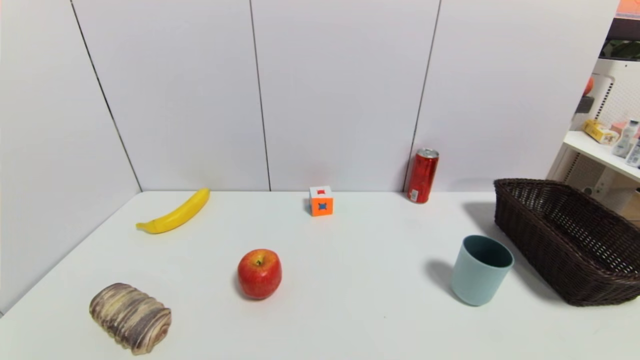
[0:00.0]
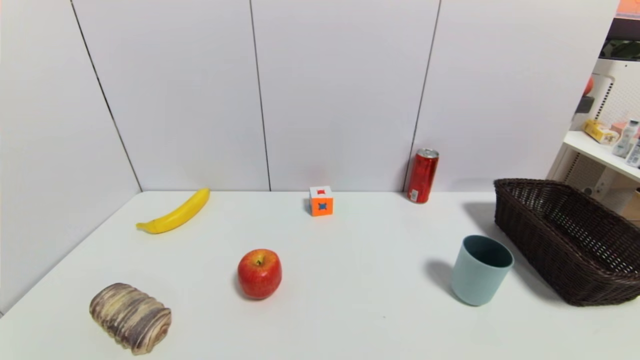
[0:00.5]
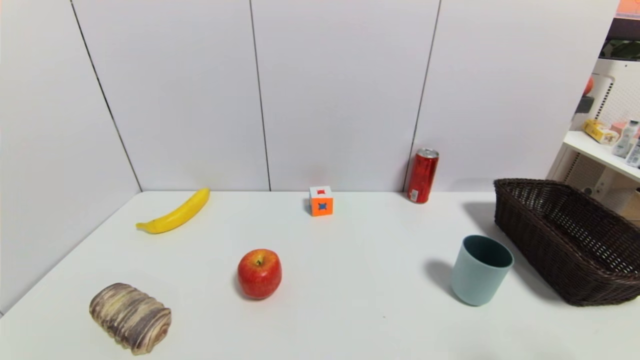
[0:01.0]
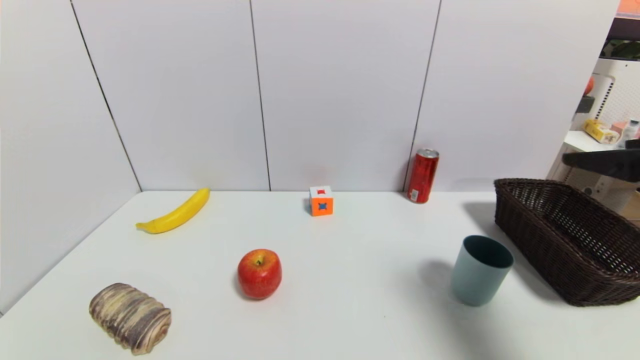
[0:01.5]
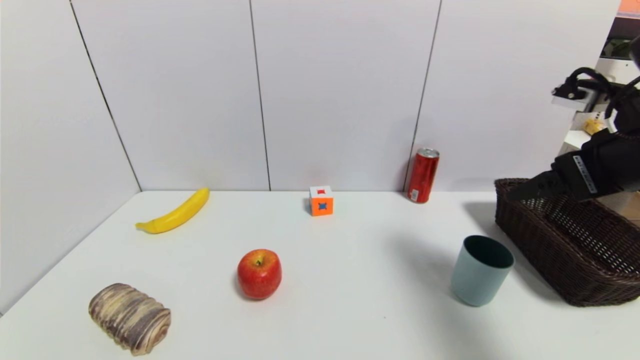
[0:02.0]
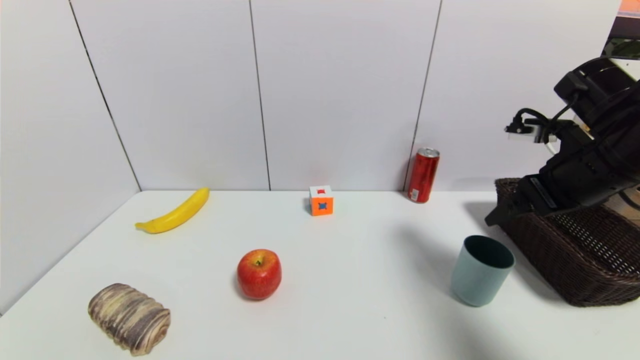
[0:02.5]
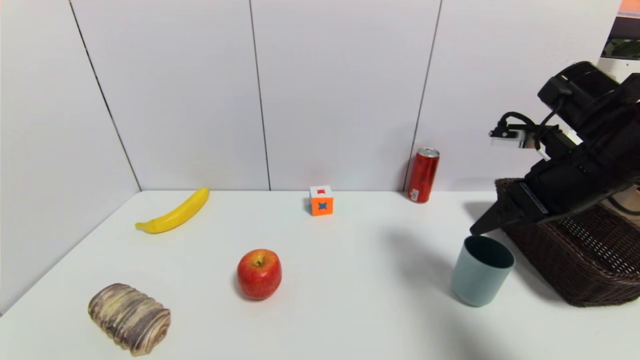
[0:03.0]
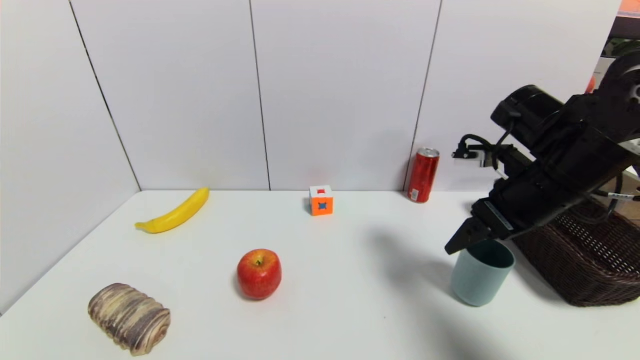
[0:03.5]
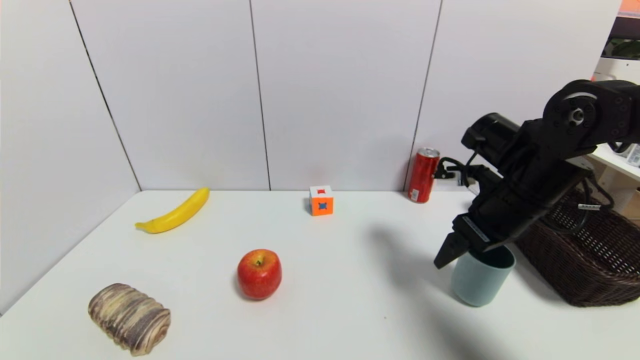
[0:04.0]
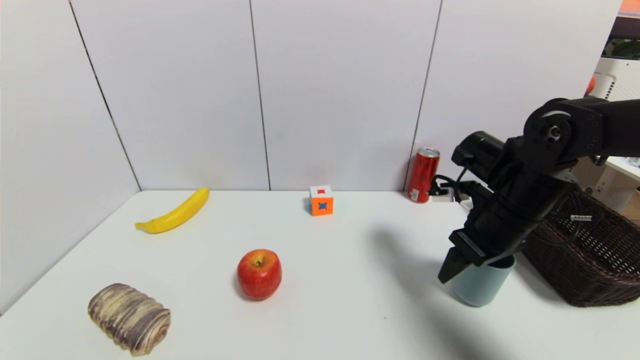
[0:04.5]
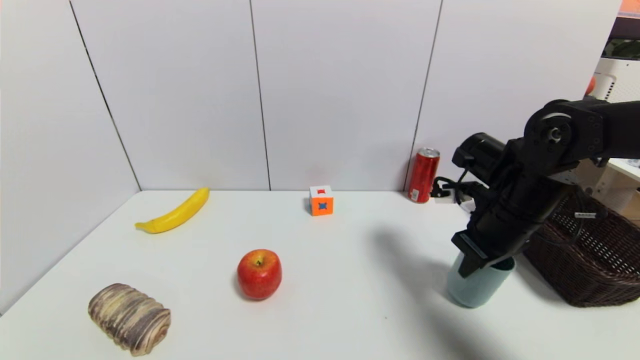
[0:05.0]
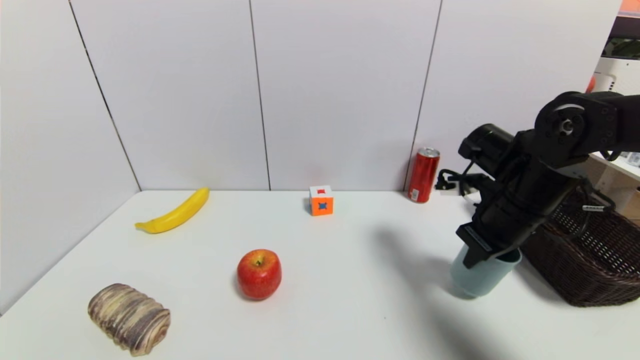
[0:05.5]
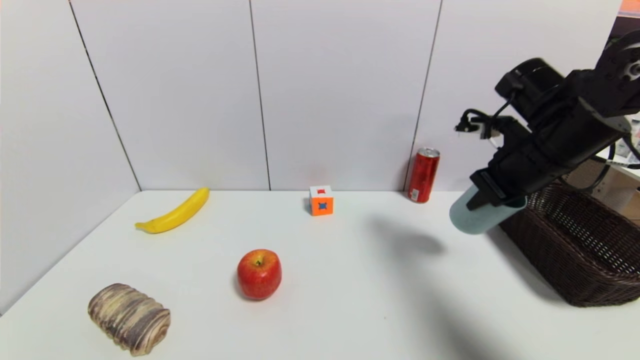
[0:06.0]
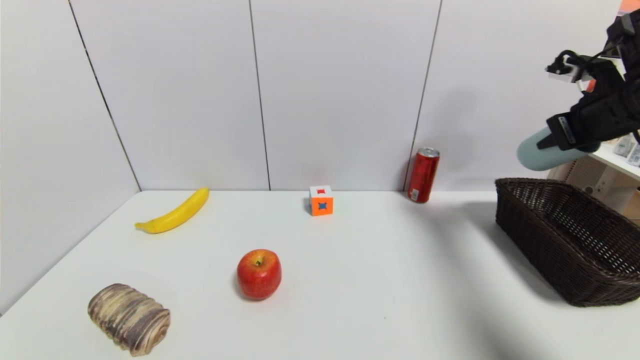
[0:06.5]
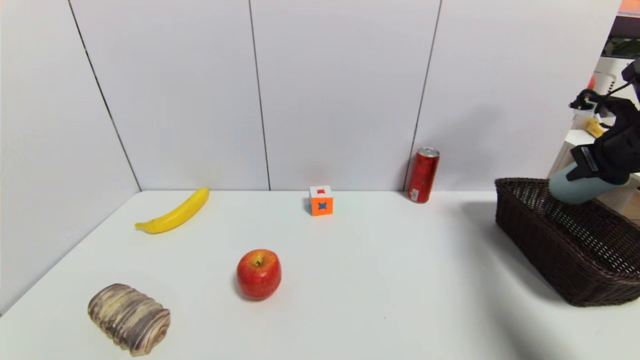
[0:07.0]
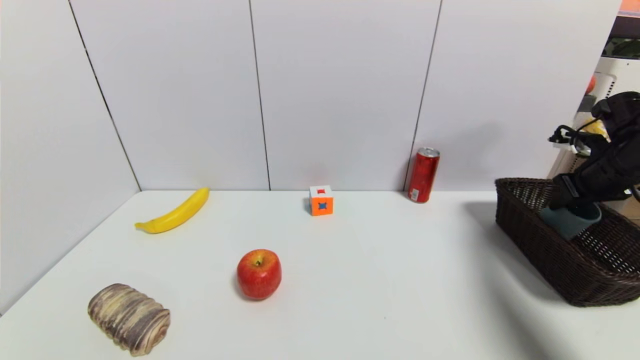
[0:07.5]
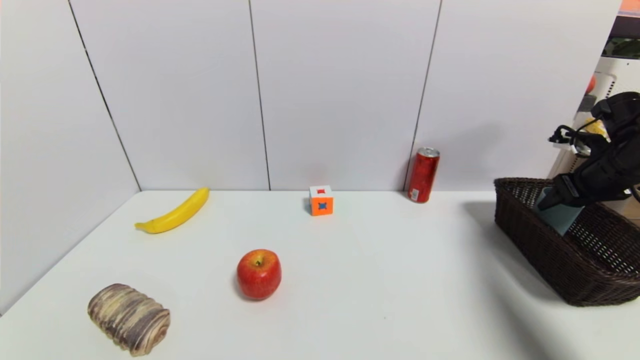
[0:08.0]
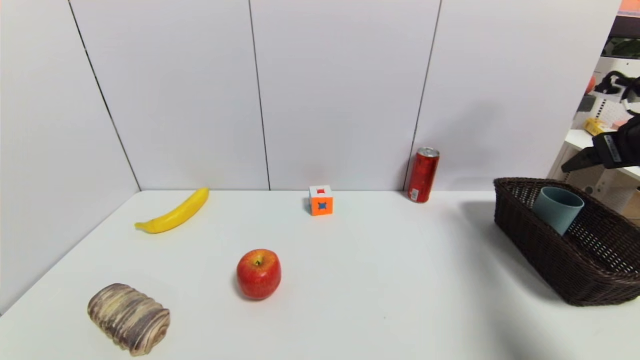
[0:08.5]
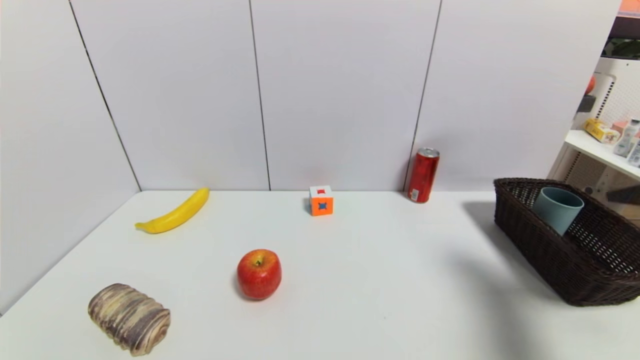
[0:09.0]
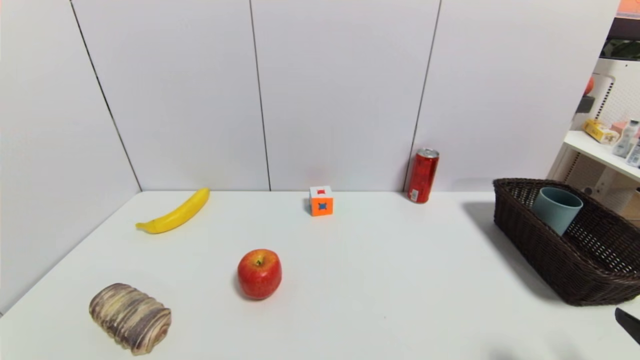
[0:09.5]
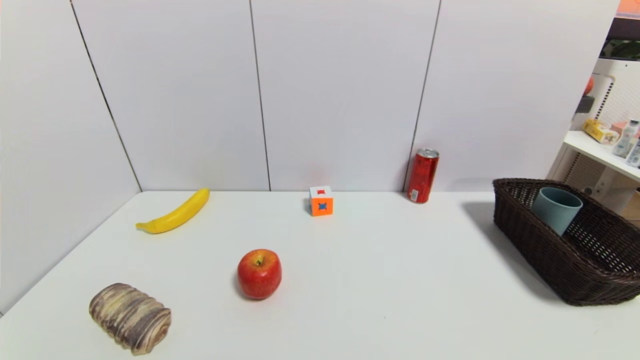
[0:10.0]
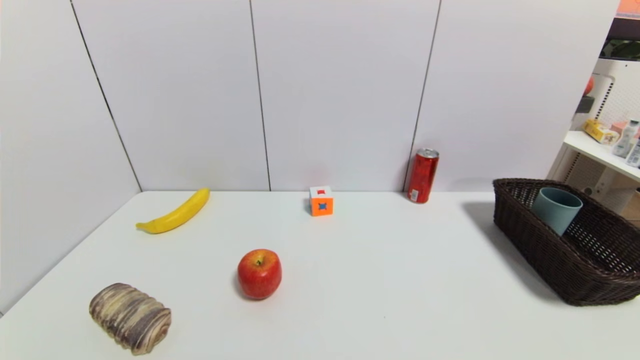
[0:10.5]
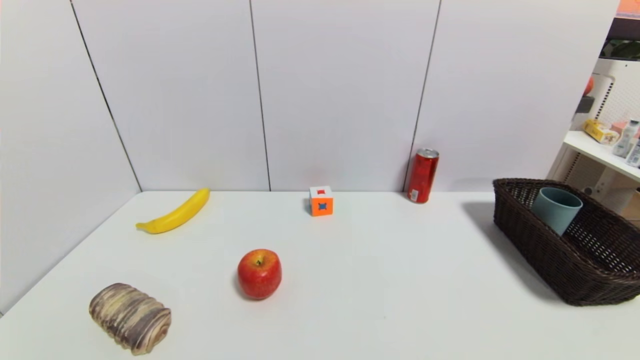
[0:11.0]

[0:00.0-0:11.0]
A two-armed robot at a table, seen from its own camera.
Task of the whole recording: use a gripper to pick the target object and place on the brown basket.
Step, 0:00.0 to 0:05.0: Grasp the blue cup with the right gripper.
Step, 0:05.5 to 0:08.0: Place the blue cup into the basket with the right gripper.
0:00.0 to 0:02.0: The right gripper is displaced forward and upward by some 35 cm.
0:02.0 to 0:03.5: The right gripper shifts about 10 cm downward and to the left.
0:03.5 to 0:05.5: The right gripper moves approximately 5 cm, and closes its fingers.
0:05.5 to 0:07.5: The right gripper heads to the right, covering some 20 cm.
0:07.5 to 0:09.0: The right gripper travels backward and upward by roughly 20 cm, and opens its fingers.
0:09.0 to 0:11.0: The right gripper goes roughly 30 cm downward and backward.
